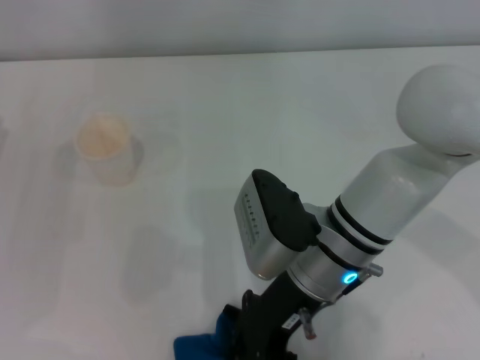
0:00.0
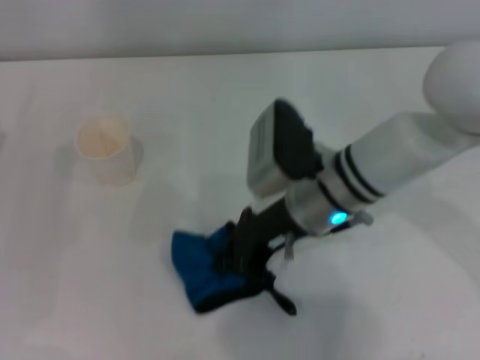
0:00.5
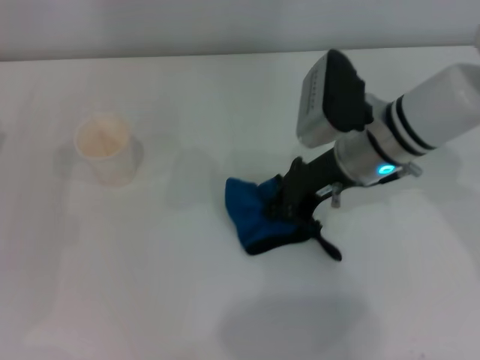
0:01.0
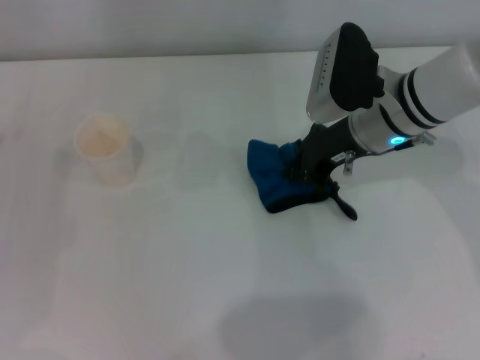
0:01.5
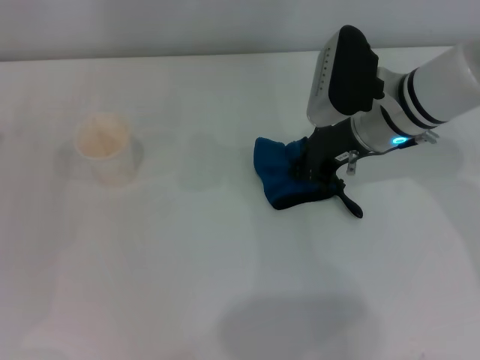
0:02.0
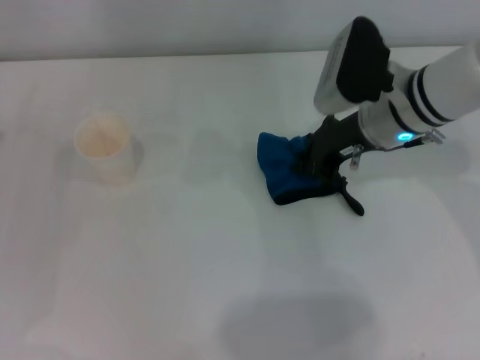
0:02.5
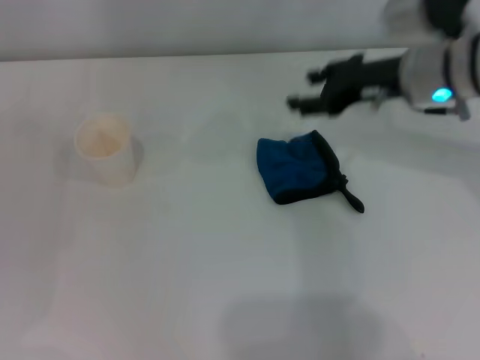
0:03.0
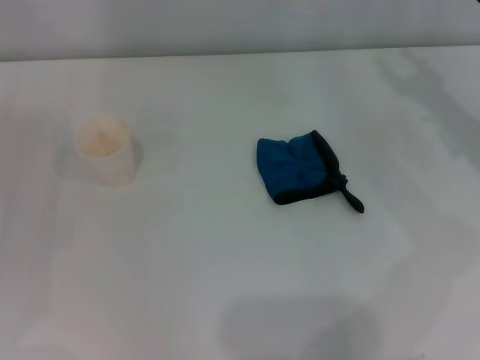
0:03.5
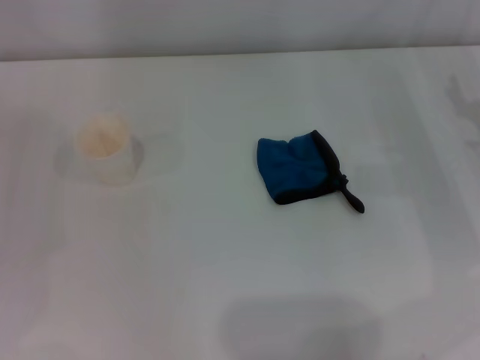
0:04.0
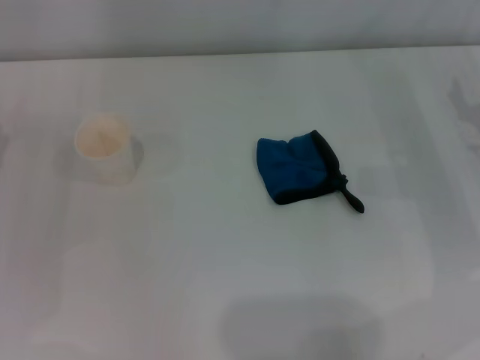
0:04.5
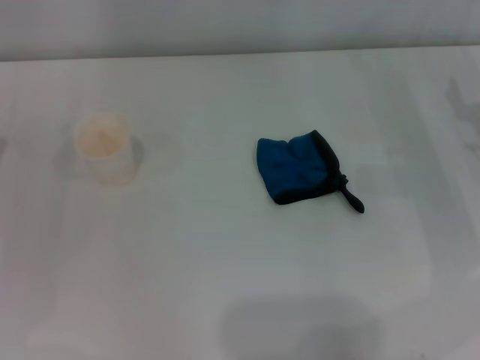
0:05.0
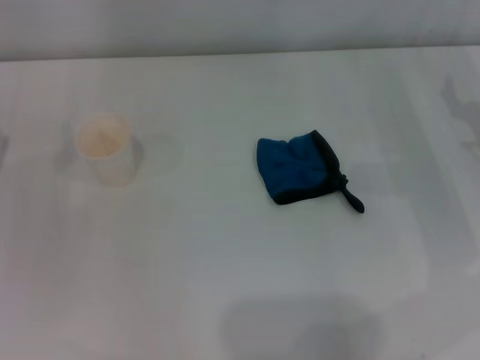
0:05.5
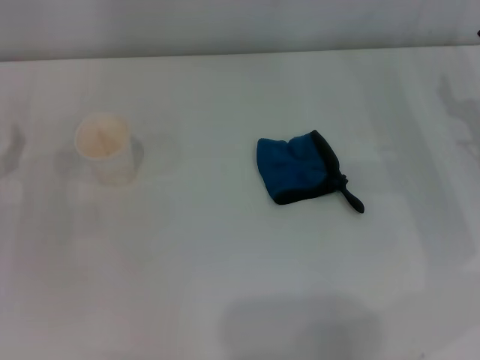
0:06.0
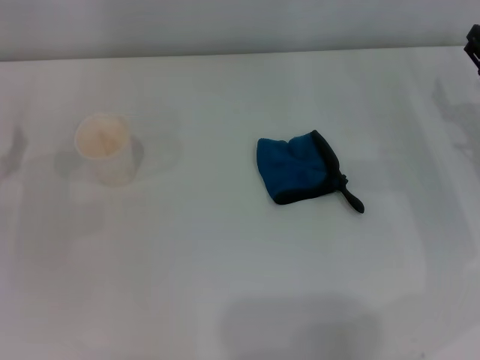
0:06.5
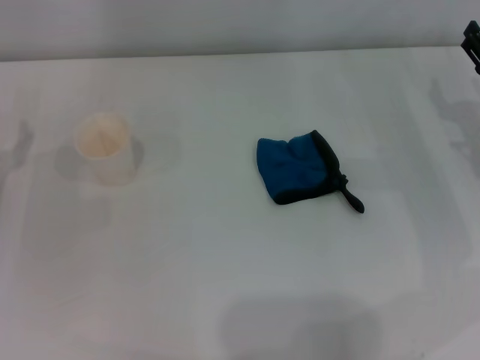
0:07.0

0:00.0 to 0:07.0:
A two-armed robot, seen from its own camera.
0:00.0 to 0:02.0: The right gripper heads forward and to the right, covering approximately 15 cm.
0:02.0 to 0:03.5: The right gripper is displaced to the right by roughly 15 cm, and opens its fingers.
